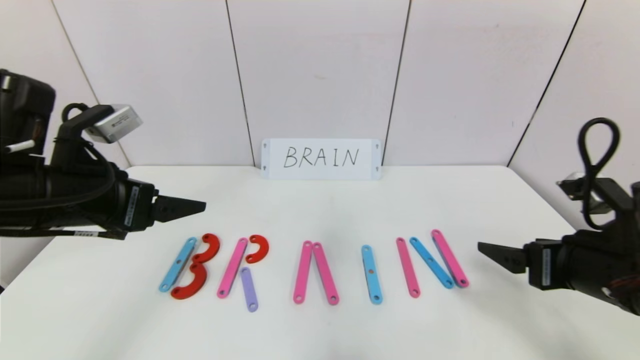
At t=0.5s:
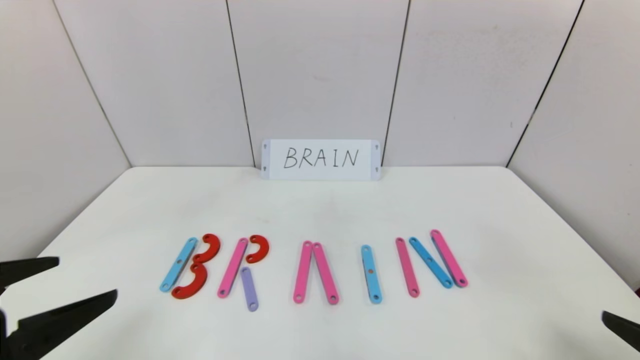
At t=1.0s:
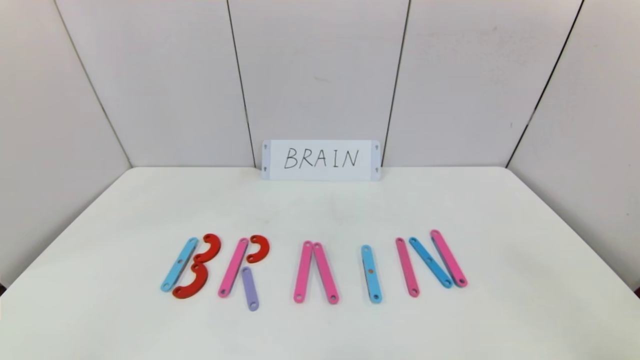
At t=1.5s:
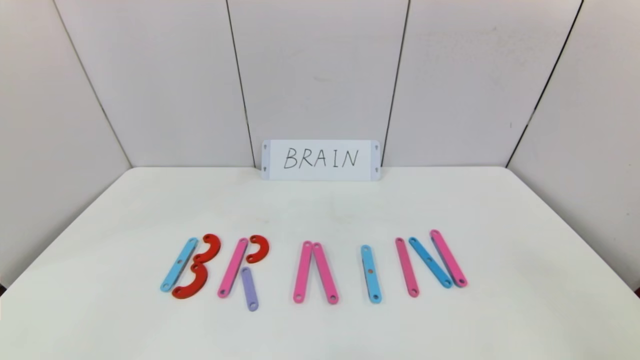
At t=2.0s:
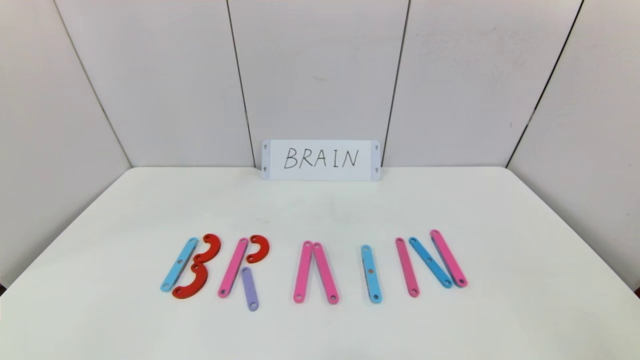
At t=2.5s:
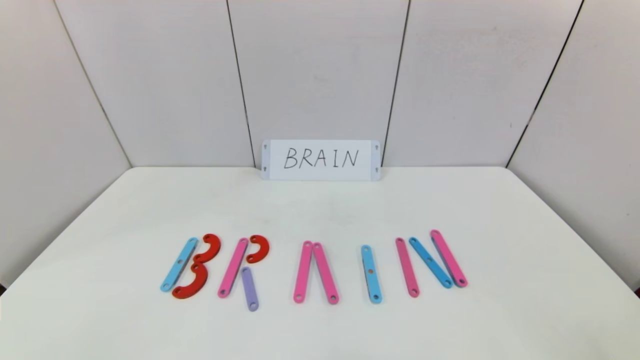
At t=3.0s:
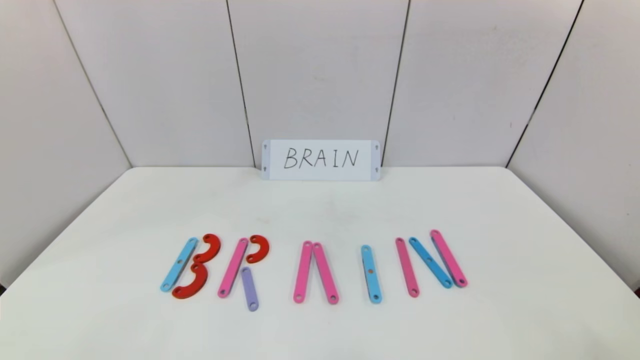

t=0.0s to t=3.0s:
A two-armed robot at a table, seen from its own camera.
Task of the whole recording: rearrange the word baai as brain.
t=0.0s to t=1.5s: Both grippers move backward, some 25 cm.
